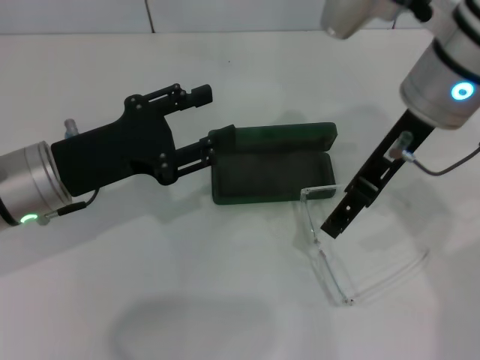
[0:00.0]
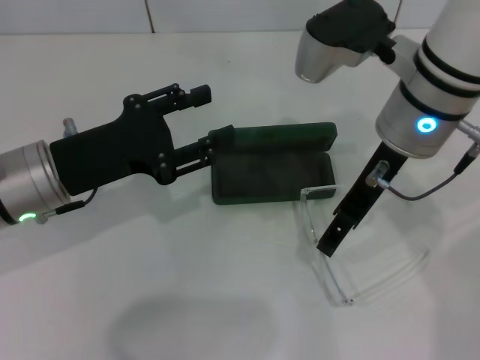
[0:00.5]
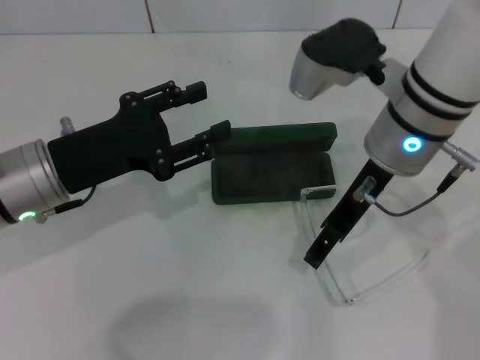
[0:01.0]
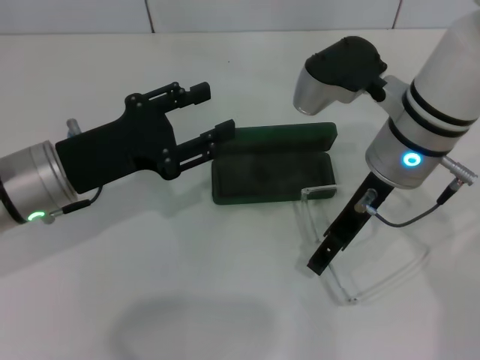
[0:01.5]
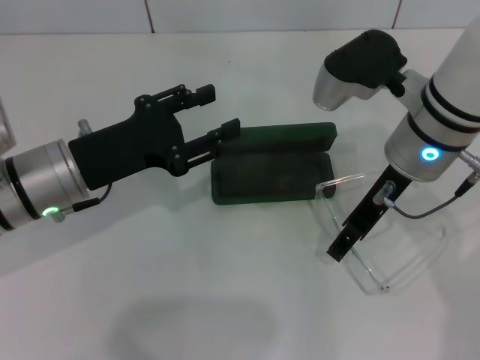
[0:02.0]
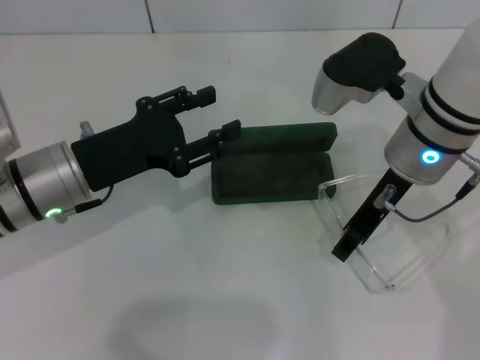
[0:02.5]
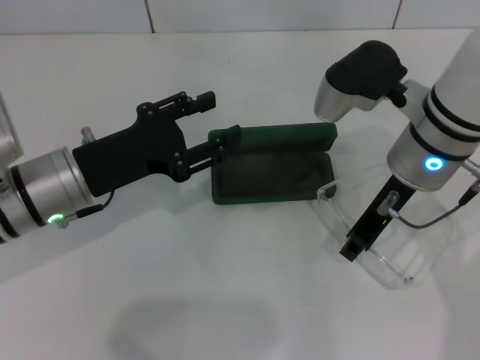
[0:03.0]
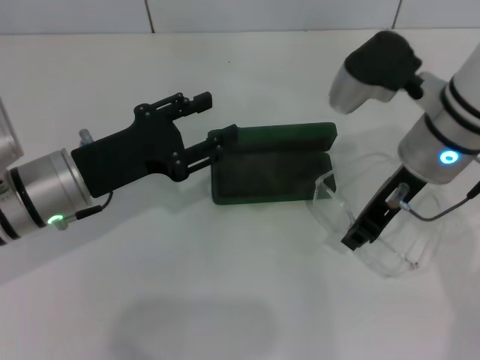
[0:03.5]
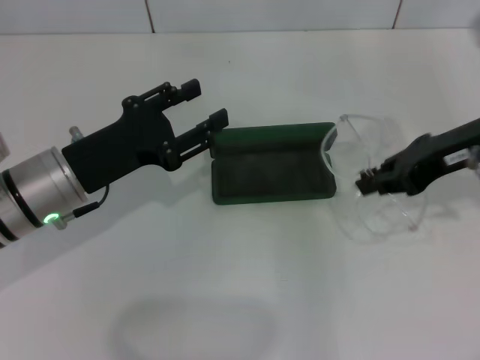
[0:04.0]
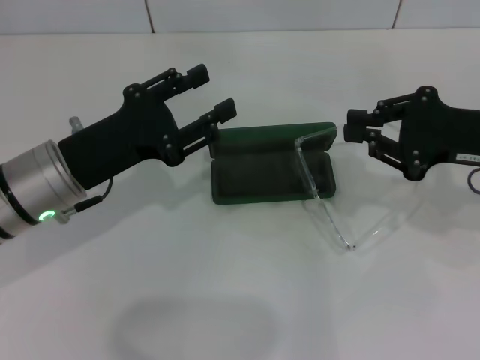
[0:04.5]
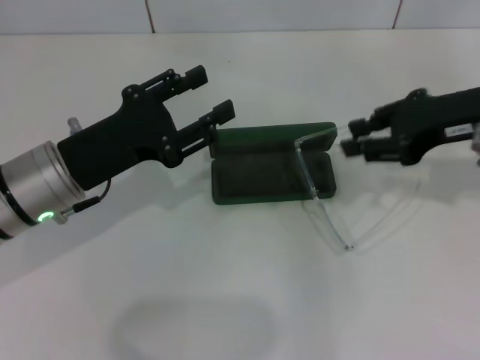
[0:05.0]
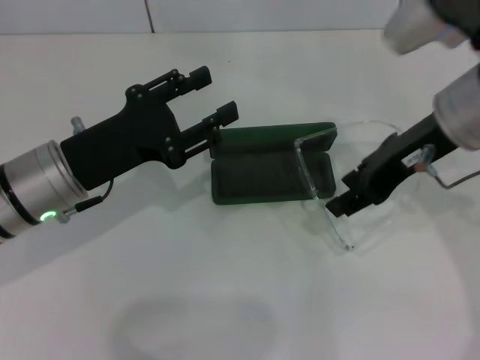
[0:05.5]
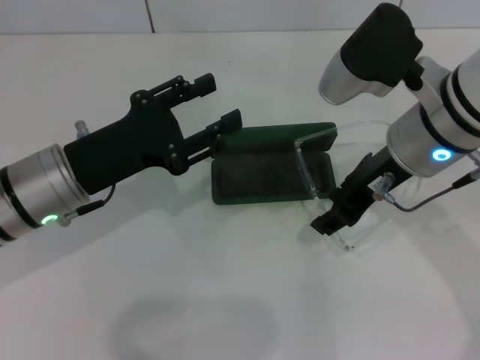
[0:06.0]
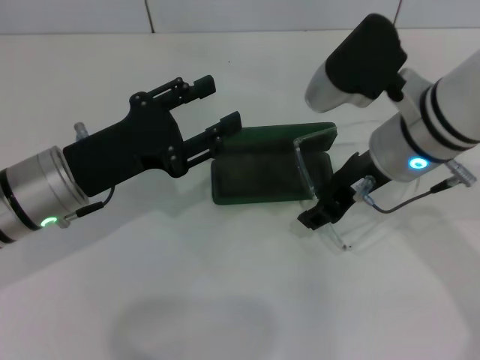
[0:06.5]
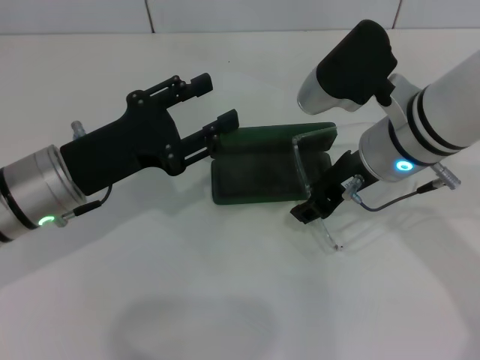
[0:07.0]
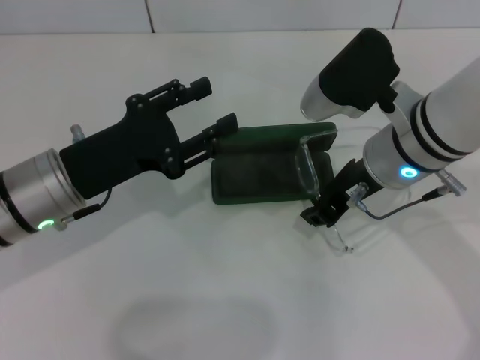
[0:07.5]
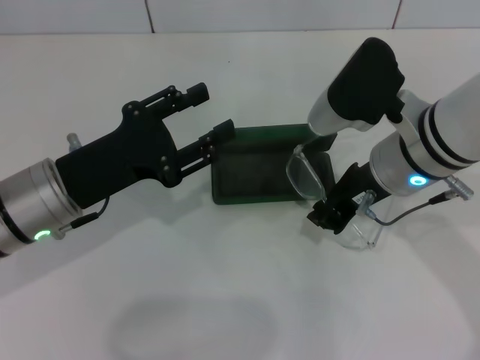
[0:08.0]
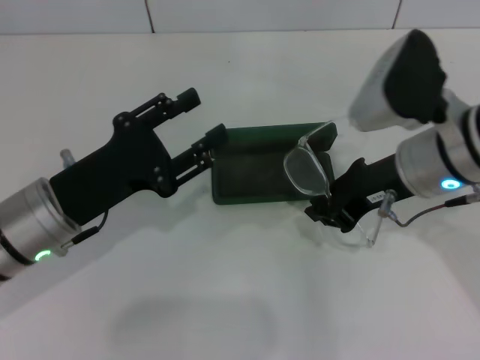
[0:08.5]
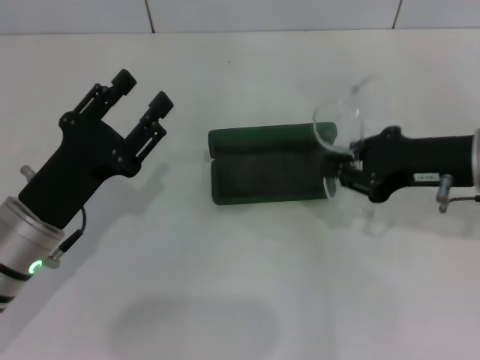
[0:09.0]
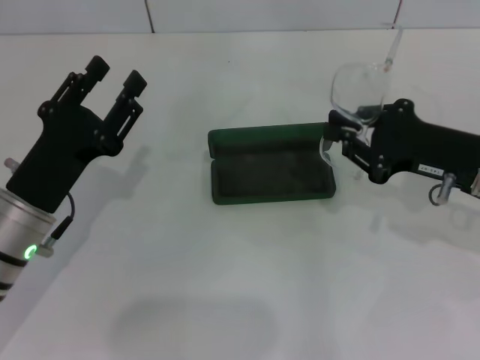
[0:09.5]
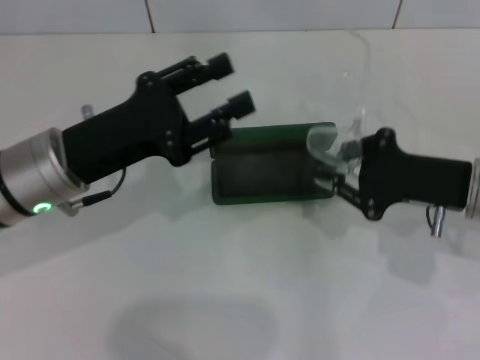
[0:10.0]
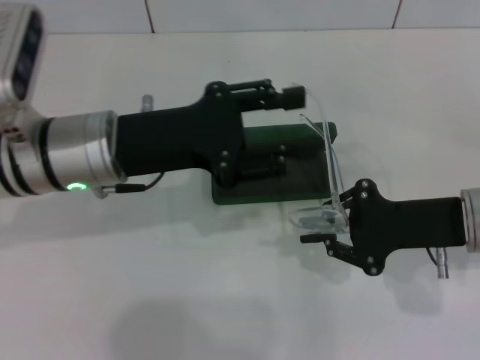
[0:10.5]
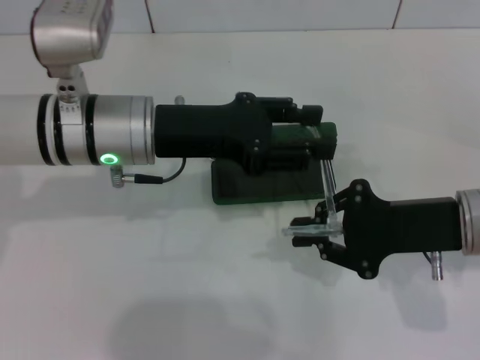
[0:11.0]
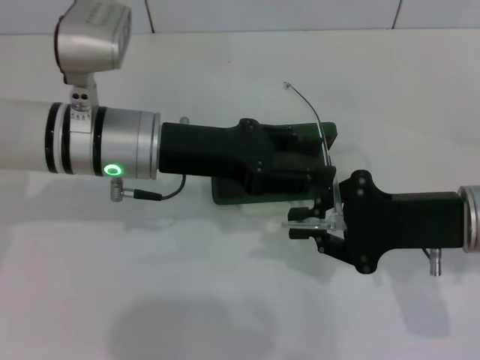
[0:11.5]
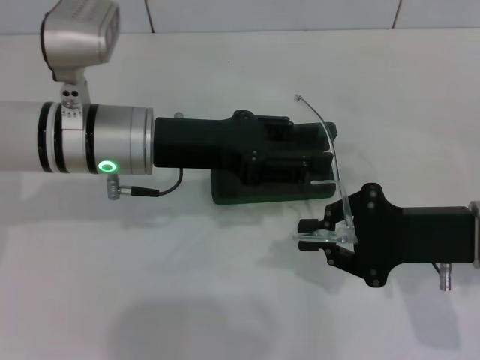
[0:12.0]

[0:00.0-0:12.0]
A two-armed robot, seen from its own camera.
Step, 0:00.0 to 0:03.0: Grab the eyeglass frame with your right hand.
Step, 0:03.5 to 0:07.5: Grab the eyeglass frame with your right hand.
0:00.0 to 0:02.0: The right gripper moves downward, approximately 5 cm.
0:02.0 to 0:04.0: The right gripper travels to the right by roughly 10 cm, and closes.
0:04.0 to 0:06.0: The right gripper heads to the left, covering some 10 cm, and opens its fingers.
0:06.0 to 0:08.0: The right gripper closes.
0:08.0 to 0:10.0: The right gripper is displaced to the right and downward by some 10 cm.
0:10.0 to 0:12.0: The left gripper moves to the right, roughly 5 cm.

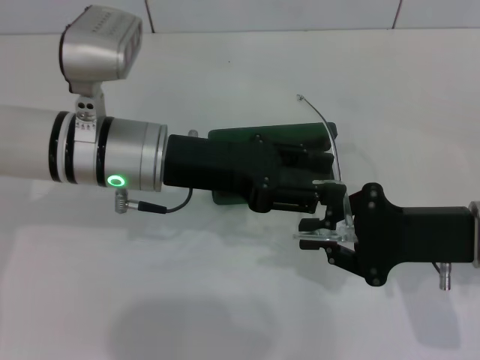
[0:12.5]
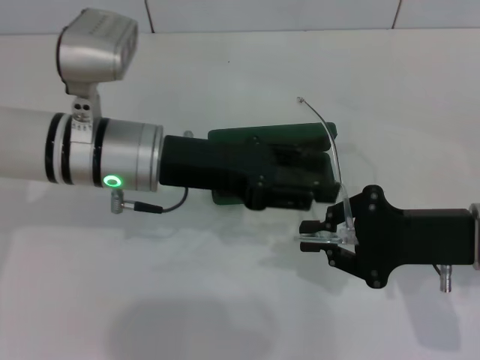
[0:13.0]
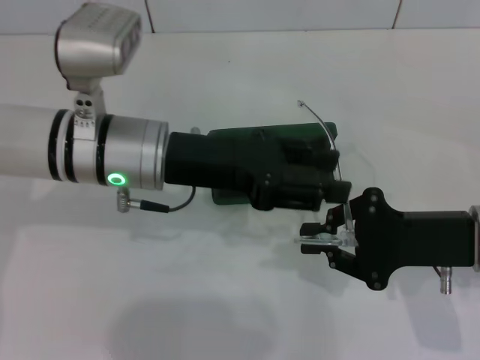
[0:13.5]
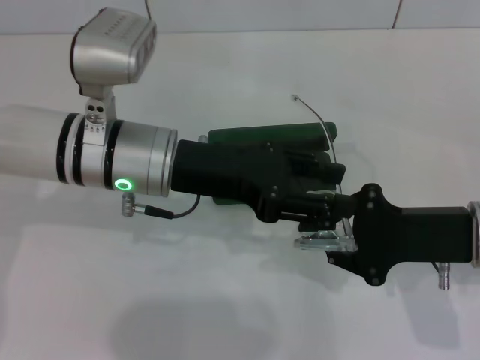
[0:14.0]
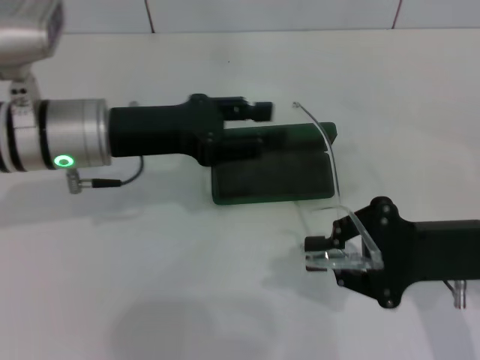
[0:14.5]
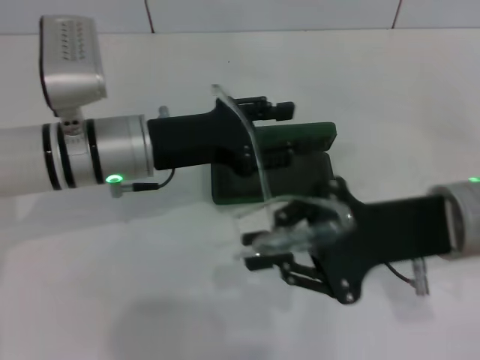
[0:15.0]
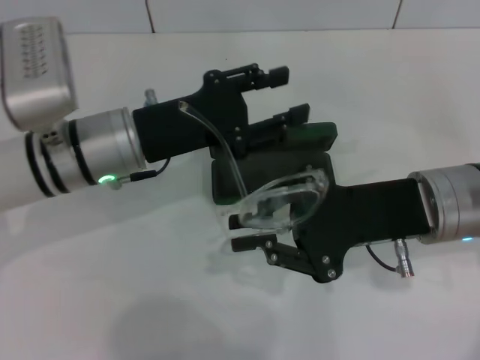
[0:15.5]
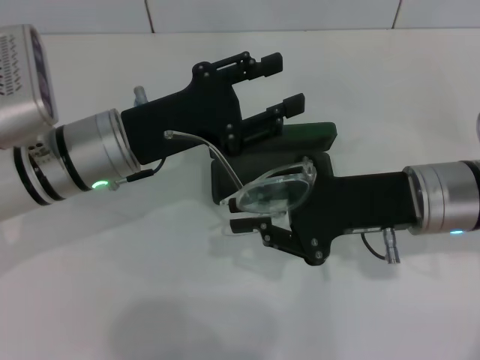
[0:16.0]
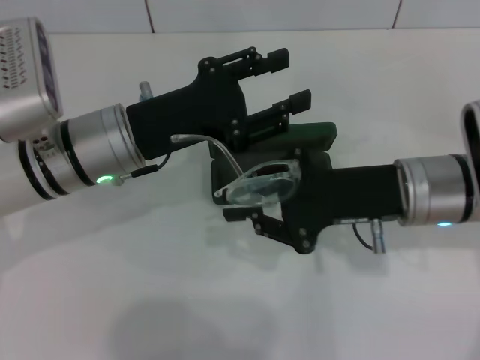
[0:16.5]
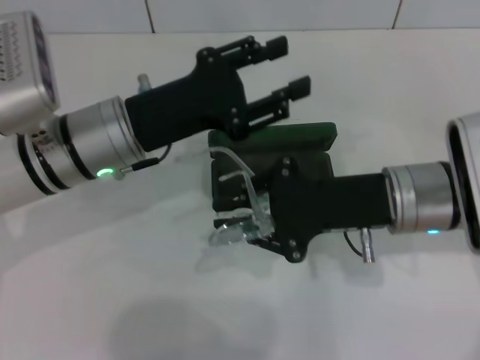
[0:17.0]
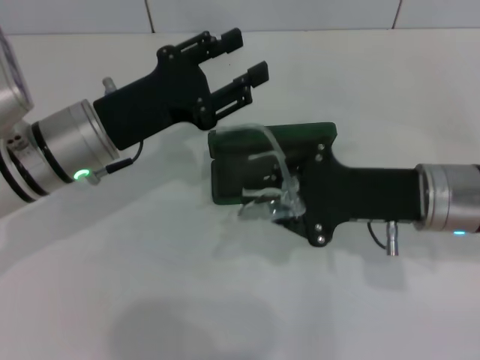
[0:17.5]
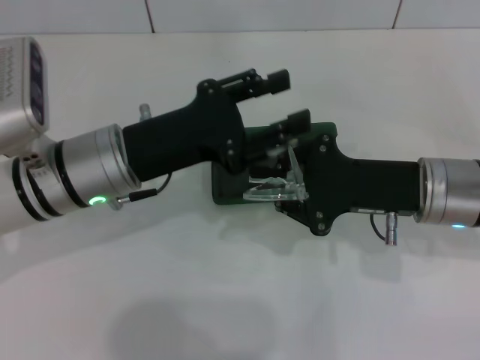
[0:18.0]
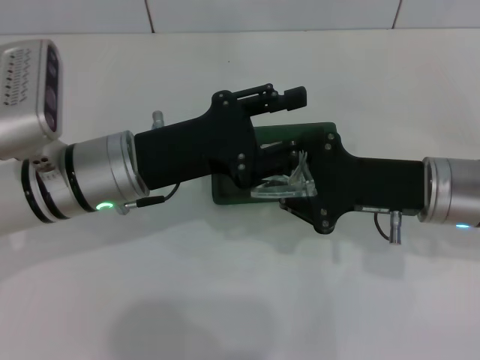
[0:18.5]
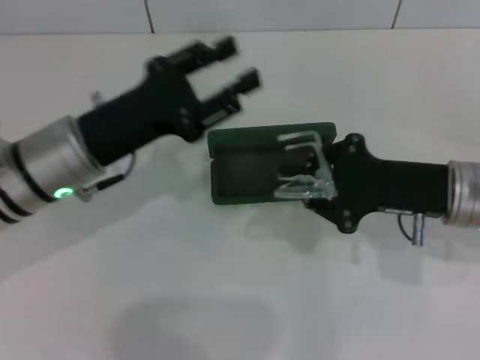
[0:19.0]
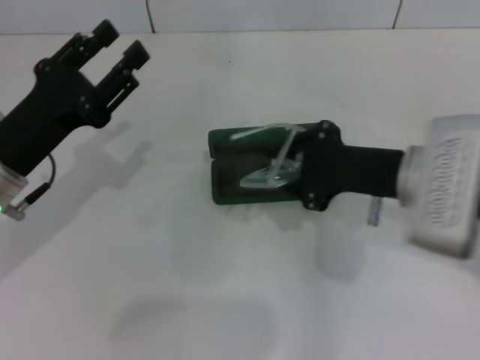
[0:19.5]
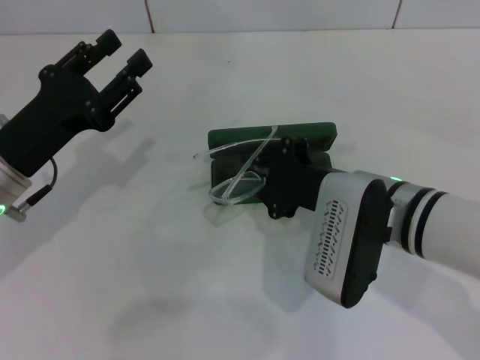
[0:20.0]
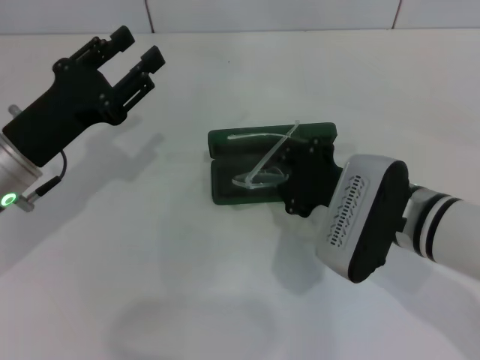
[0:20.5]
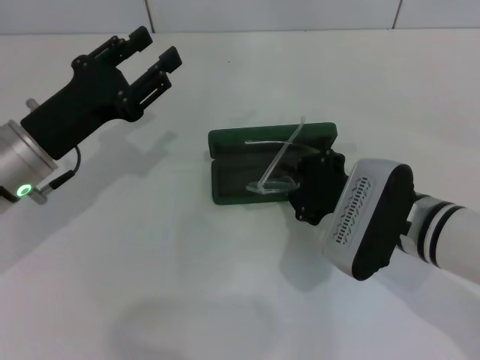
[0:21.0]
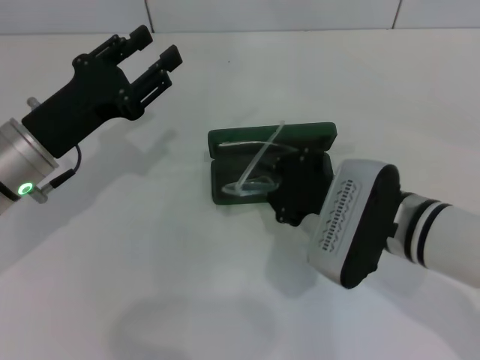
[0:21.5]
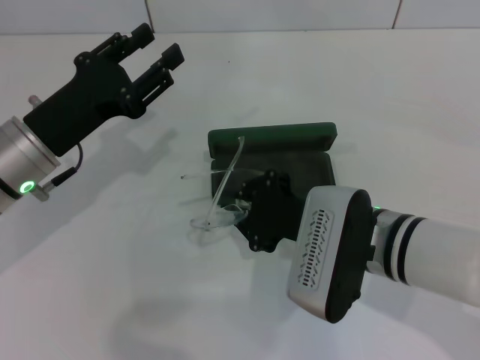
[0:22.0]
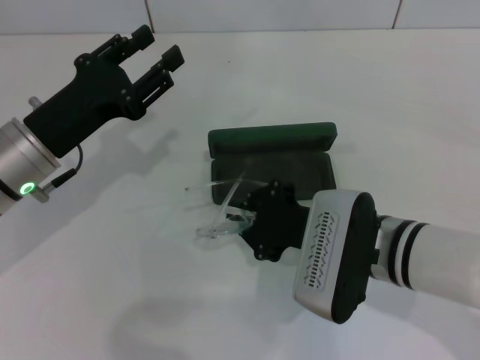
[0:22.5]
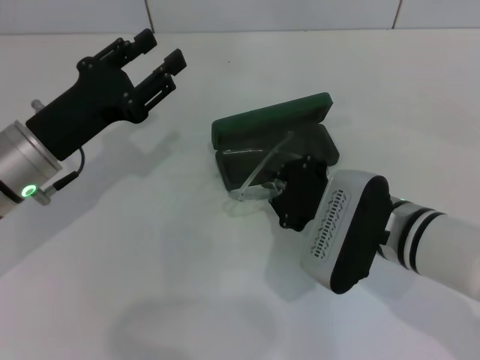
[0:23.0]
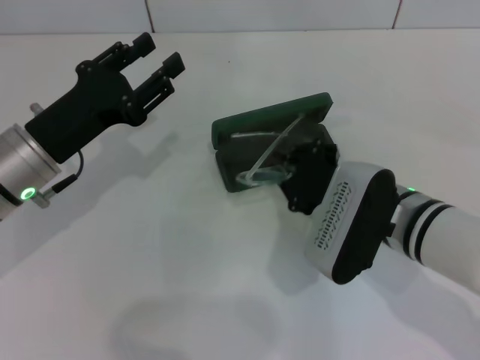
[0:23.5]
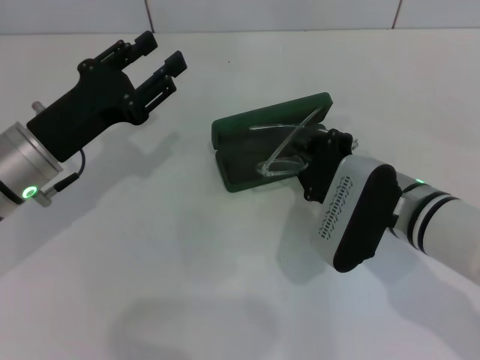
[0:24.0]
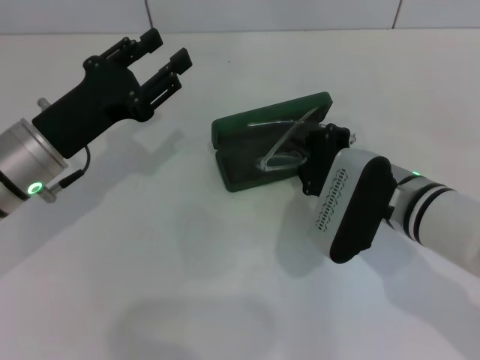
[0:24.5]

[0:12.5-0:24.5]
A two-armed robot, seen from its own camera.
Step, 0:12.5 to 0:18.5: Fold the frame with your left hand.
0:12.5 to 0:14.5: The left gripper changes place by about 5 cm.
0:14.5 to 0:16.5: The right gripper shifts some 5 cm to the left.
0:18.5 to 0:20.5: The right gripper is displaced to the left by about 5 cm. The left gripper goes about 10 cm to the left.
0:20.5 to 0:22.5: The grippers move only a little.
0:22.5 to 0:24.5: The right gripper shifts by roughly 5 cm.

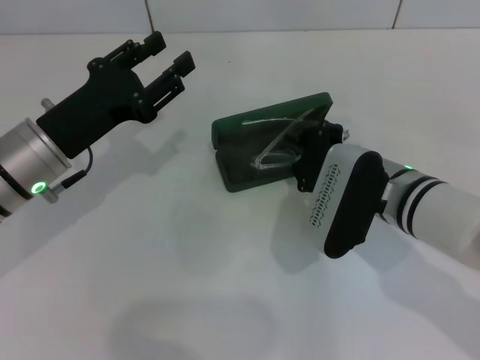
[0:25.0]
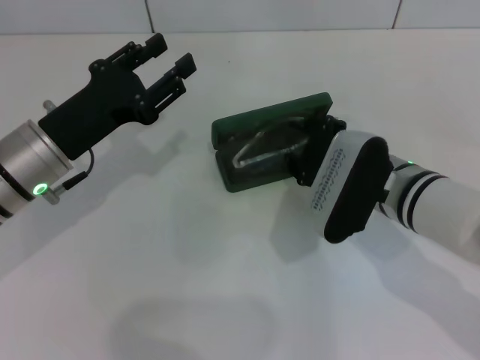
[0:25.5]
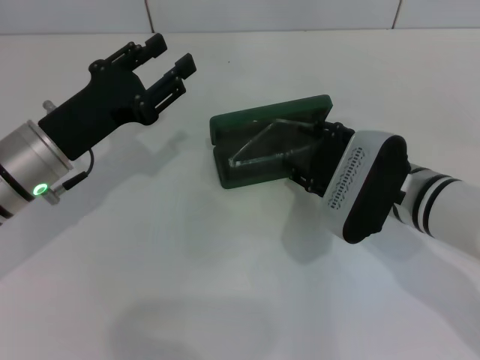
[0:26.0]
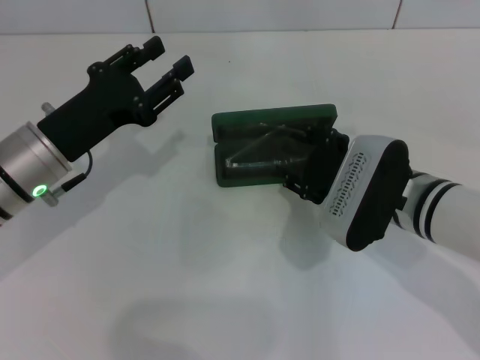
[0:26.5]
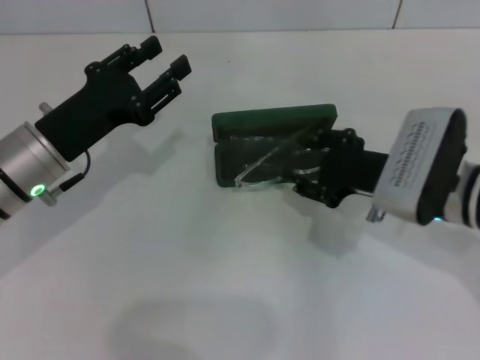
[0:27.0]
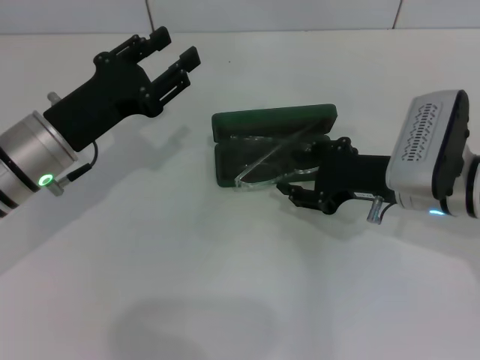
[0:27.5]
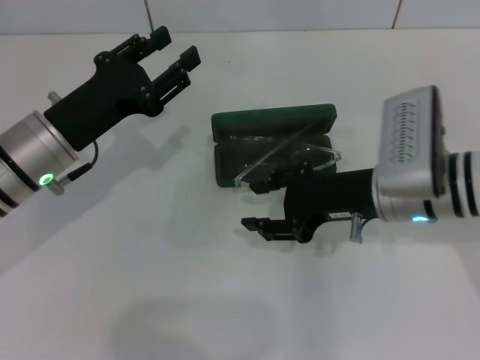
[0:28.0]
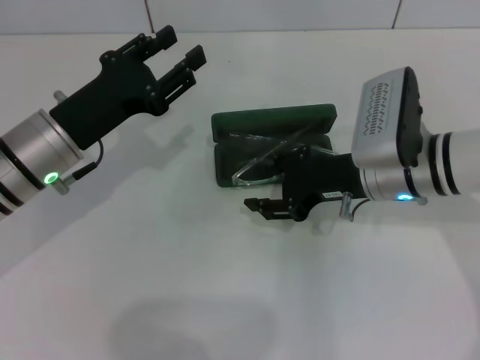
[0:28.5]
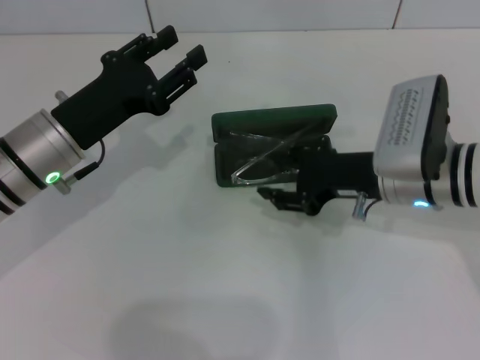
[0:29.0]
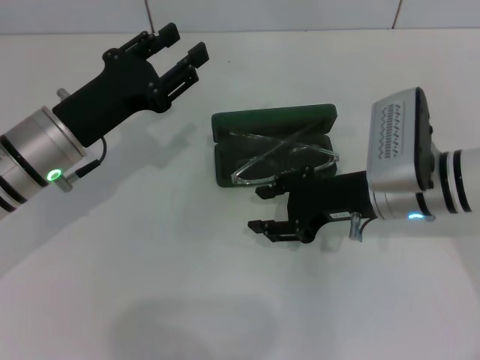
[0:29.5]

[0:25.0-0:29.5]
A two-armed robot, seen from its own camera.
0:25.0 to 0:27.0: The right gripper opens.
